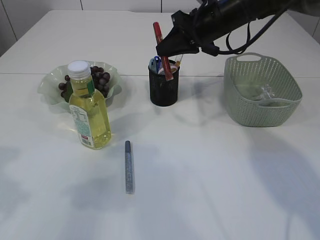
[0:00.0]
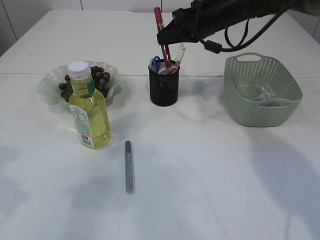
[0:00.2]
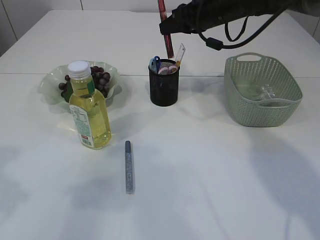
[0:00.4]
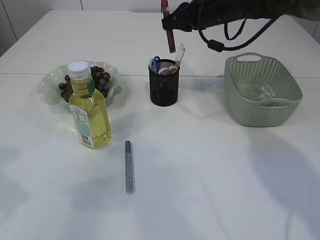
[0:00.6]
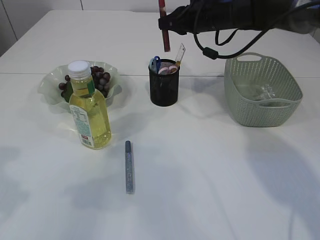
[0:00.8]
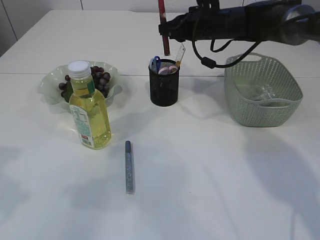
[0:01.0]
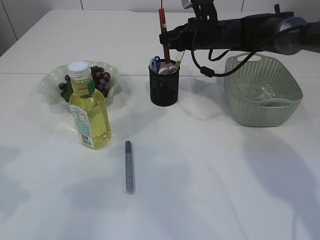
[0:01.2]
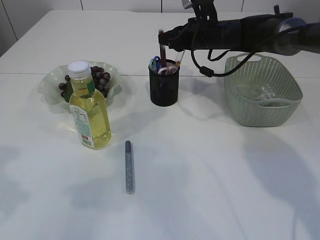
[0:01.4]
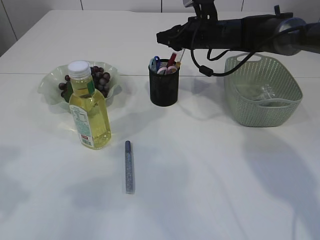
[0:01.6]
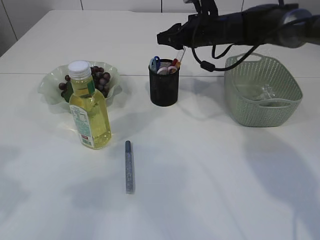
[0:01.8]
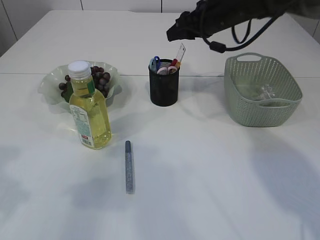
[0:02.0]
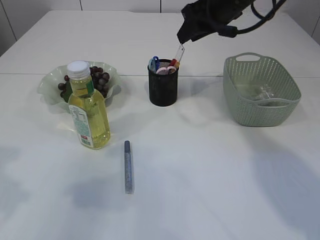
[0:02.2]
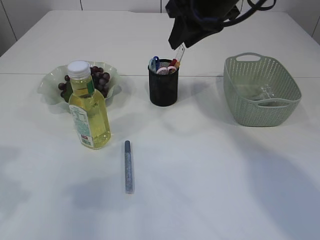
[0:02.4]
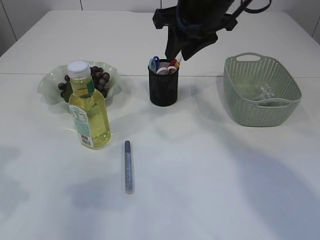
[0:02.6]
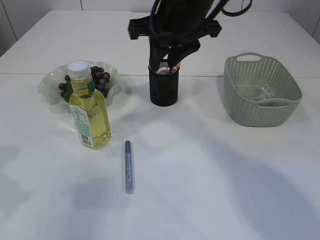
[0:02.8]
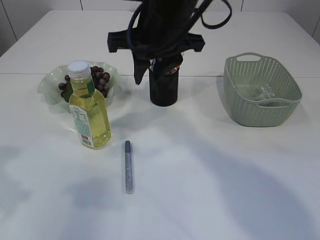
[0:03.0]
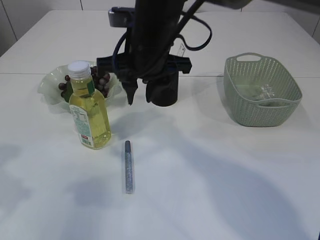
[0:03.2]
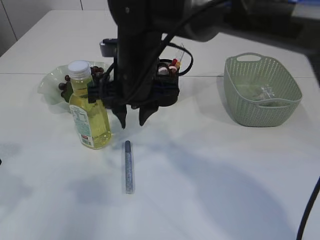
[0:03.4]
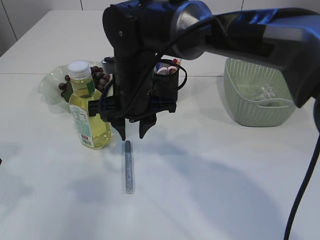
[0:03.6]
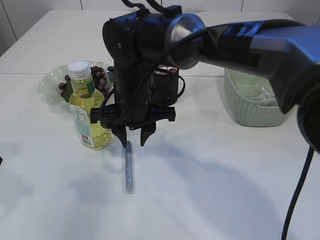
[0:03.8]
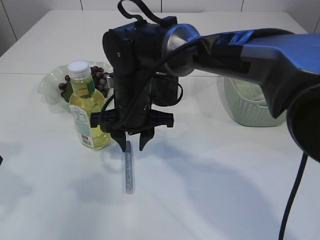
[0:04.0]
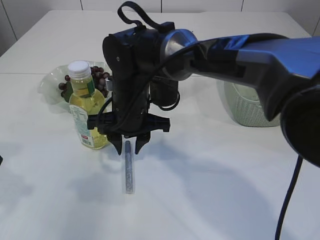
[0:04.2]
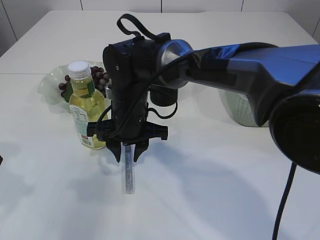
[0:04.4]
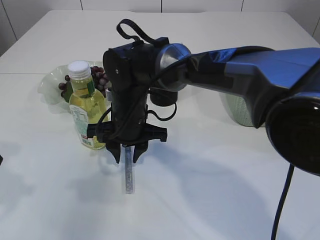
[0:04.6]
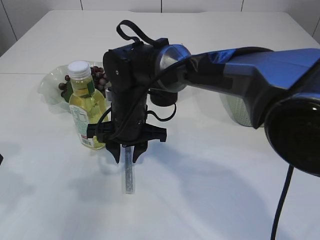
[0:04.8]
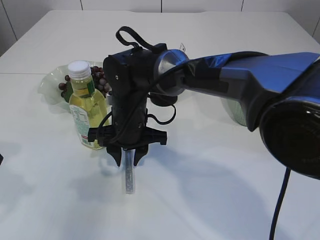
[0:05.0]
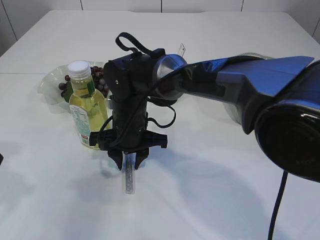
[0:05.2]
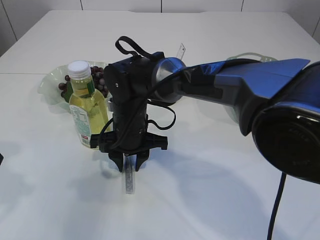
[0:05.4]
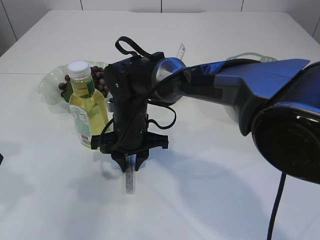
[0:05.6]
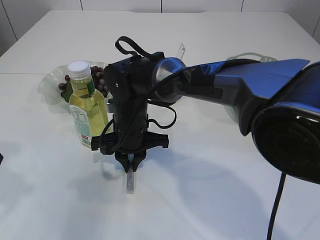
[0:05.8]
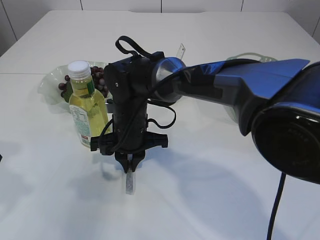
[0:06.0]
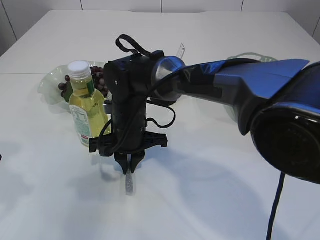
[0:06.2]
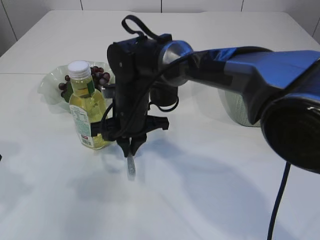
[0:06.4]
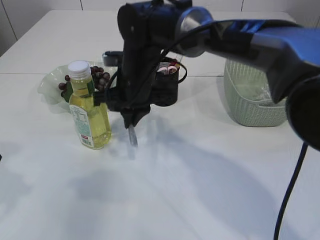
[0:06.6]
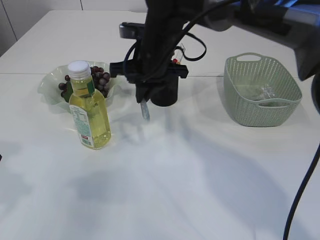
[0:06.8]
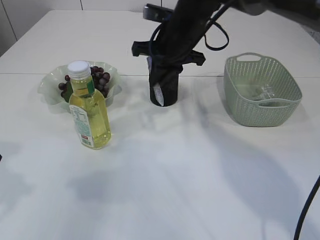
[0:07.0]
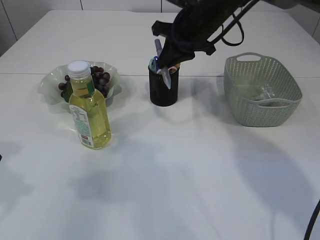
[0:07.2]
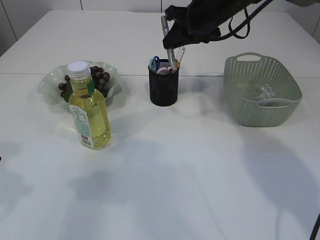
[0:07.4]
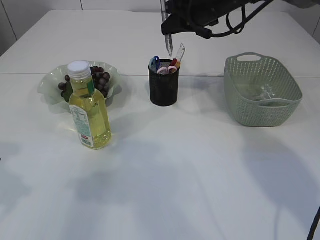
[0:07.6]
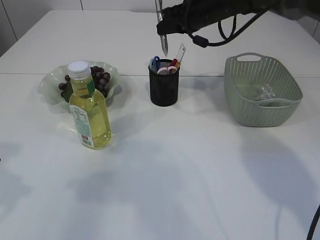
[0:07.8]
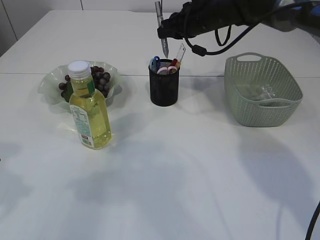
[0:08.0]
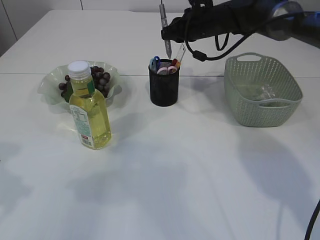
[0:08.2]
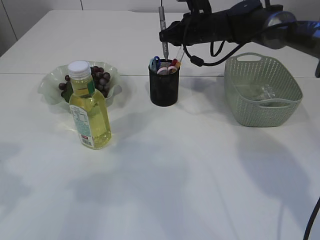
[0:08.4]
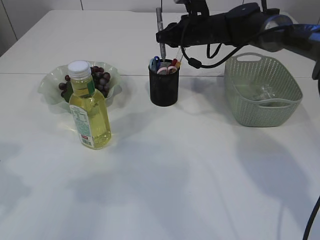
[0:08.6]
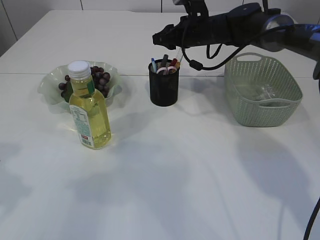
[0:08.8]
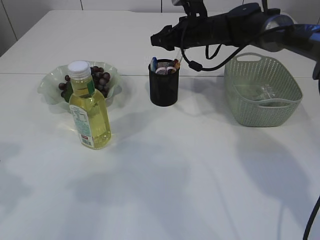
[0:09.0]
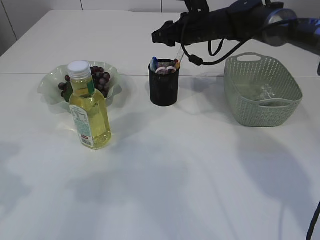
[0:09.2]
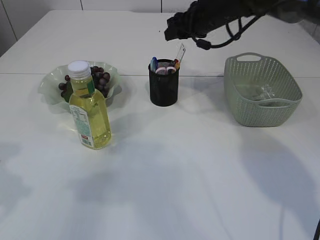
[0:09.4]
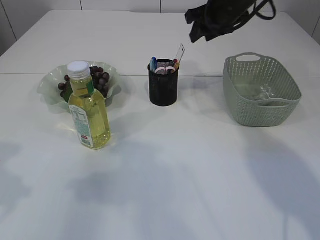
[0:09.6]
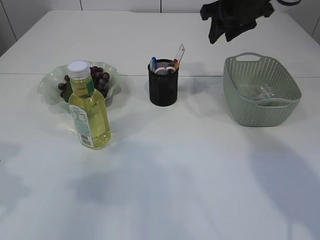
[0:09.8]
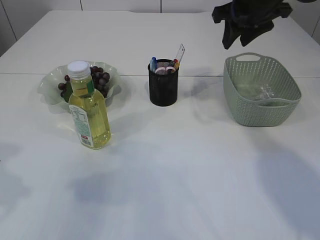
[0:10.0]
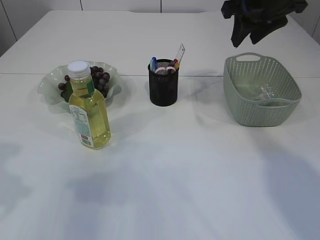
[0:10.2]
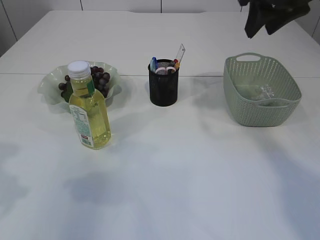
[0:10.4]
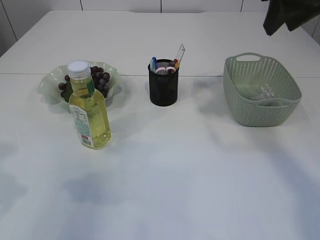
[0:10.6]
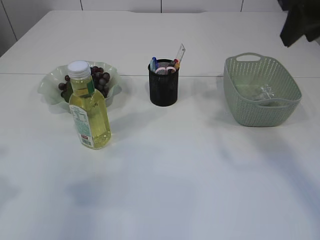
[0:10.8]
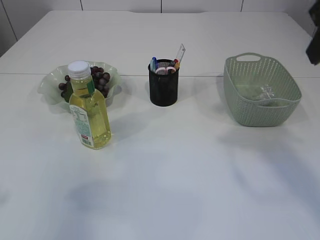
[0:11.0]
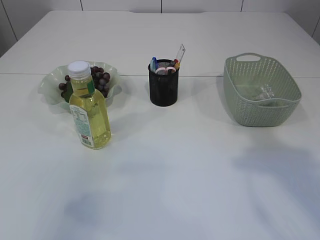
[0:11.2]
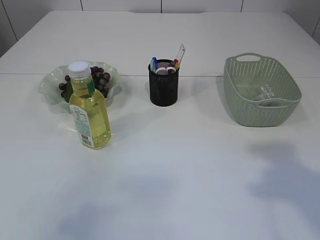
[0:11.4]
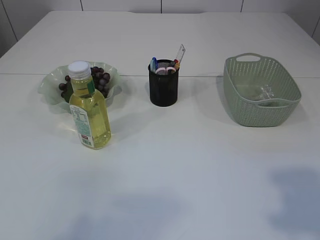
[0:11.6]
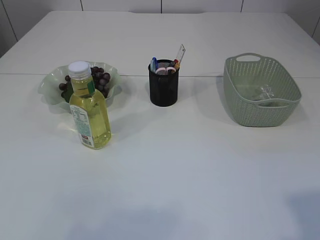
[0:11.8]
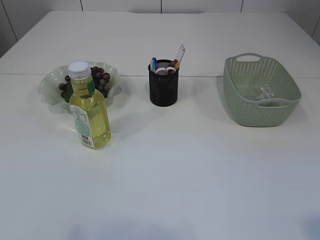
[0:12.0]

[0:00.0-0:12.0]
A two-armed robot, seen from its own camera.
Step, 0.0 to 1.6 s: place the red glue into the pen holder.
Step, 1.8 to 6.6 s: pick up the silver glue.
Step, 6.8 to 9.0 s: place the silver glue into the pen holder.
0.0 to 1.6 s: The right gripper goes about 10 cm forward and downward, and opens.
1.6 to 3.0 s: The right gripper is displaced backward, to the left and upward by about 25 cm.
3.0 to 4.4 s: The right gripper is displaced downward and to the left by roughly 15 cm.
4.4 to 6.0 s: The right gripper closes.
6.0 to 7.6 s: The right gripper travels to the right, upward and forward by approximately 25 cm.
7.6 to 9.0 s: The right gripper travels downward by some 10 cm, and opens its fingers.
9.0 to 10.4 s: The right gripper travels backward, upward and to the right by approximately 25 cm.
10.4 to 12.0 s: The right gripper goes about 35 cm backward. Meanwhile the left gripper is displaced backward and upward by roughly 20 cm.

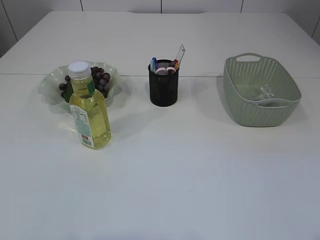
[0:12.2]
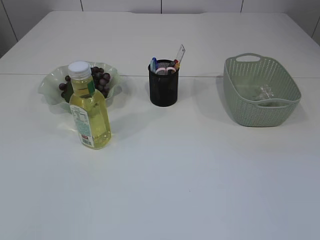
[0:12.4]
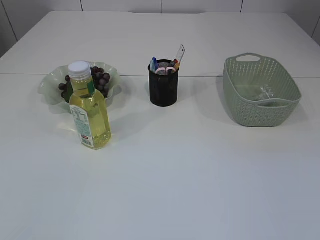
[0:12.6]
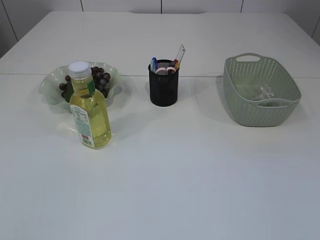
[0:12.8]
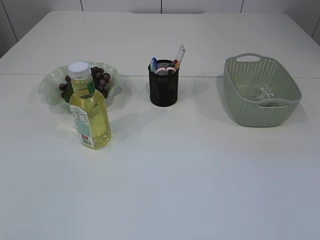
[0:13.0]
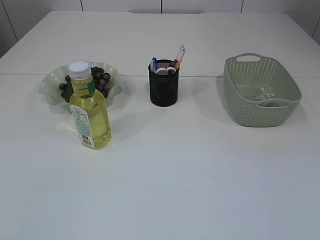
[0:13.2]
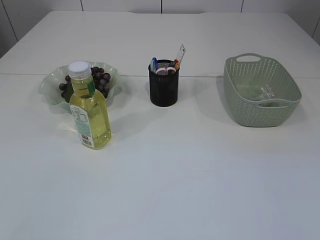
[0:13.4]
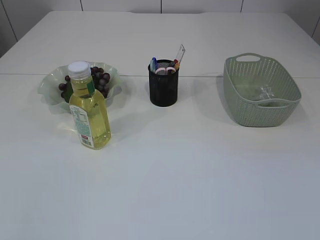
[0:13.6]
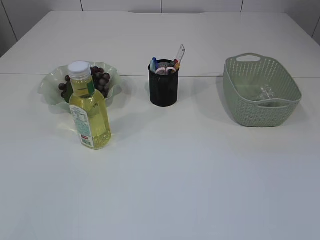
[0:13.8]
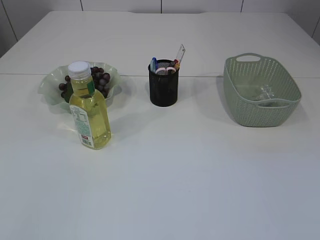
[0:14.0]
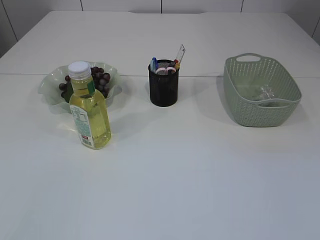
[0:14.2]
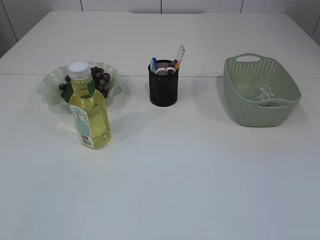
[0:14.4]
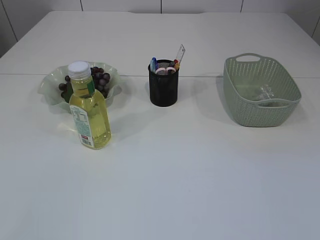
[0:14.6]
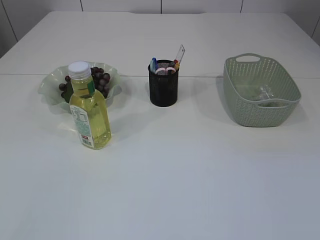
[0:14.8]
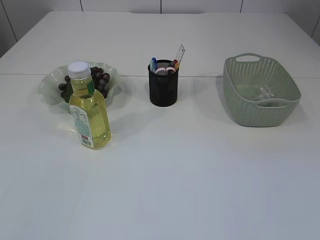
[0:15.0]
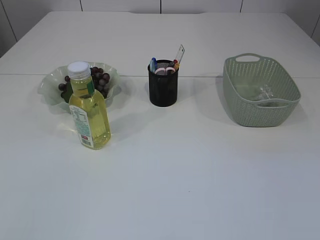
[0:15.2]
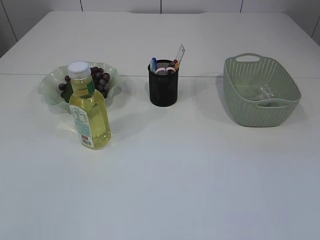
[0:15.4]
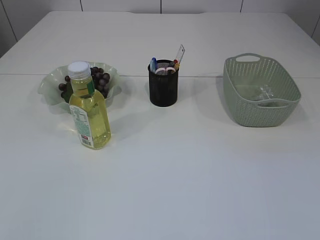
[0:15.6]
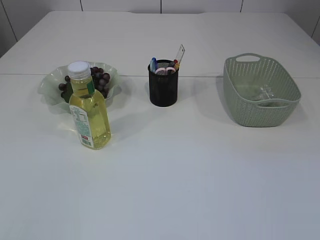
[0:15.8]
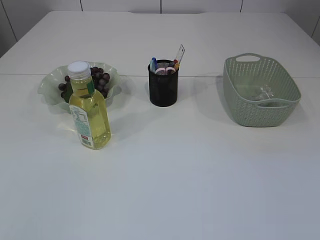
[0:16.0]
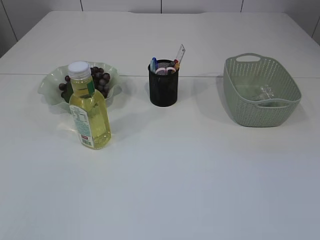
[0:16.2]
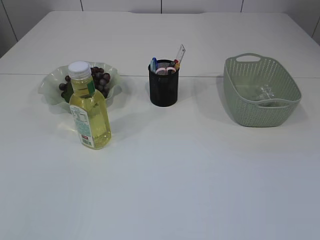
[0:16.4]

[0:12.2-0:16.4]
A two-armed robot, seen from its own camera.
15.0 to 16.4 s: Neither gripper changes place.

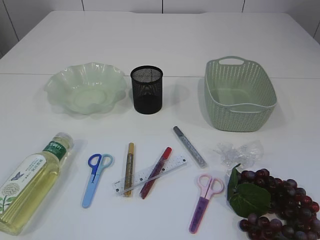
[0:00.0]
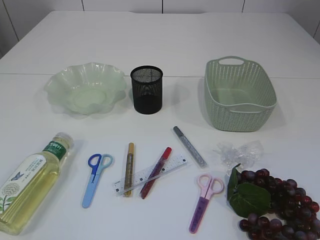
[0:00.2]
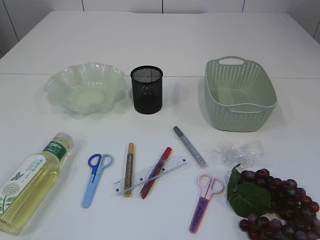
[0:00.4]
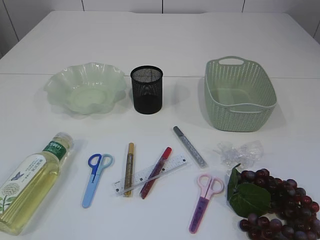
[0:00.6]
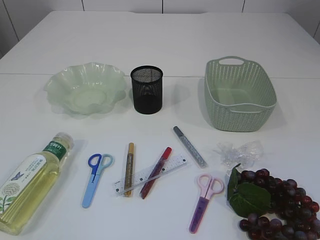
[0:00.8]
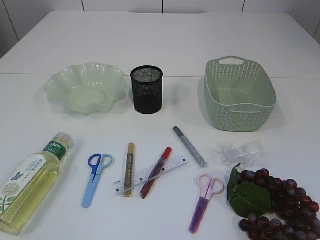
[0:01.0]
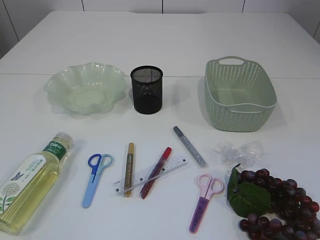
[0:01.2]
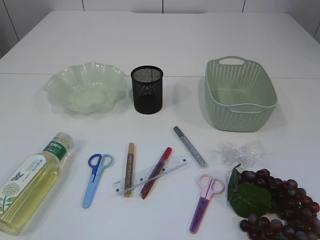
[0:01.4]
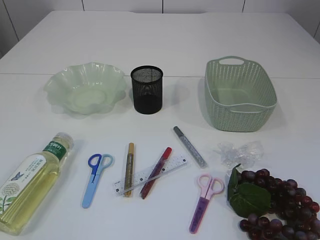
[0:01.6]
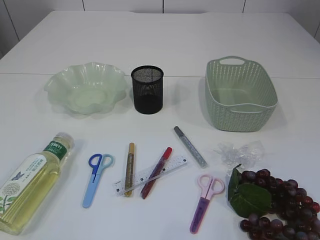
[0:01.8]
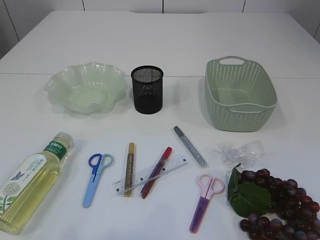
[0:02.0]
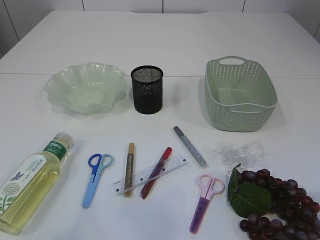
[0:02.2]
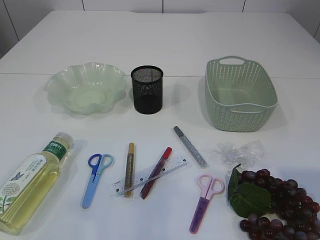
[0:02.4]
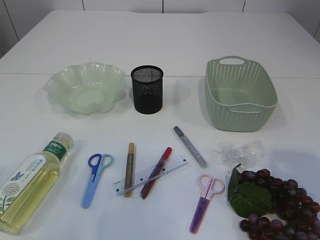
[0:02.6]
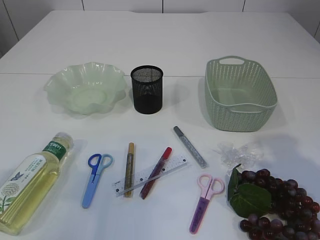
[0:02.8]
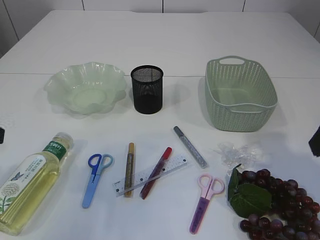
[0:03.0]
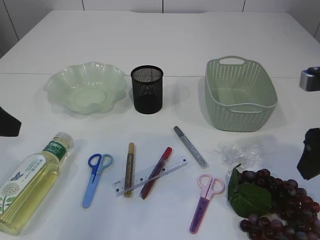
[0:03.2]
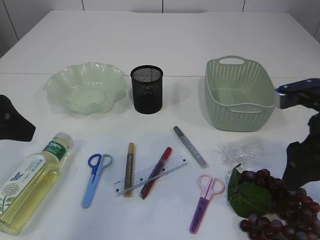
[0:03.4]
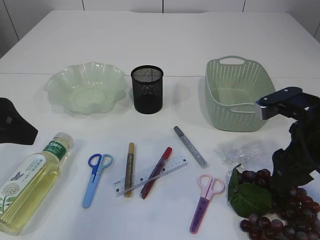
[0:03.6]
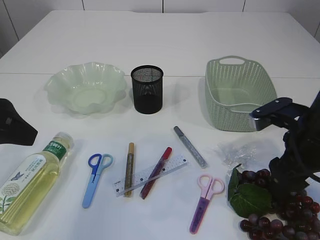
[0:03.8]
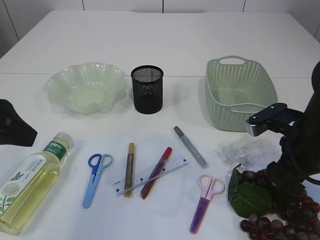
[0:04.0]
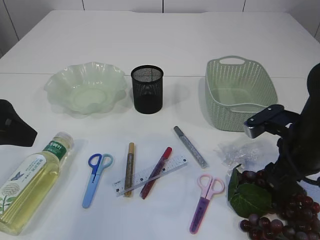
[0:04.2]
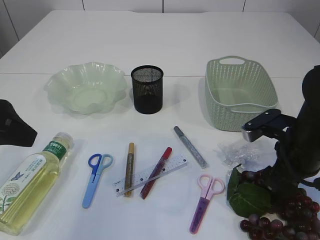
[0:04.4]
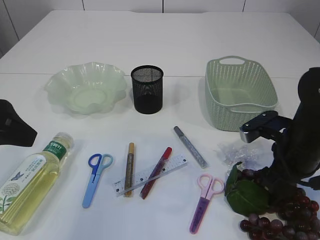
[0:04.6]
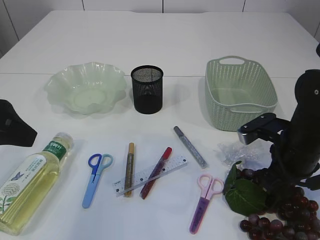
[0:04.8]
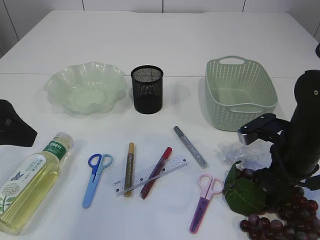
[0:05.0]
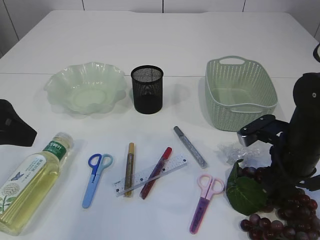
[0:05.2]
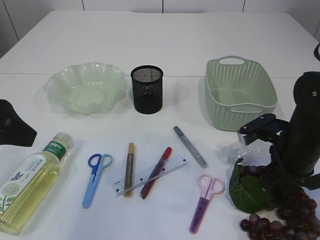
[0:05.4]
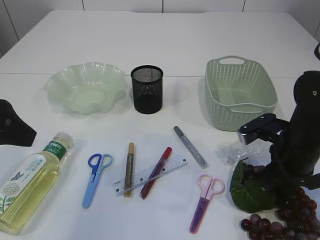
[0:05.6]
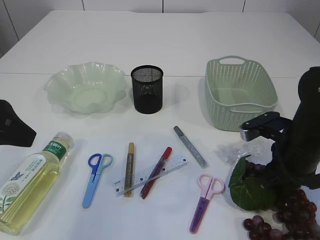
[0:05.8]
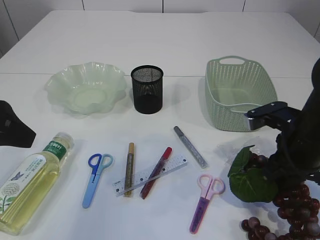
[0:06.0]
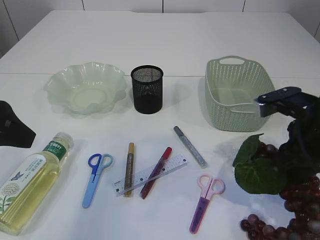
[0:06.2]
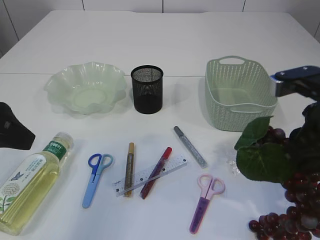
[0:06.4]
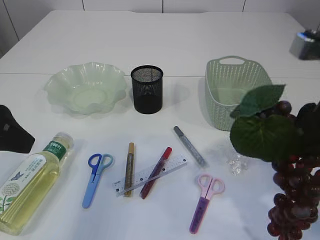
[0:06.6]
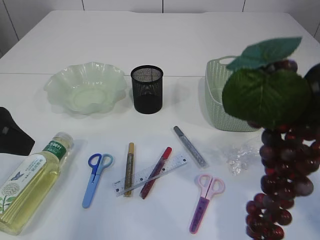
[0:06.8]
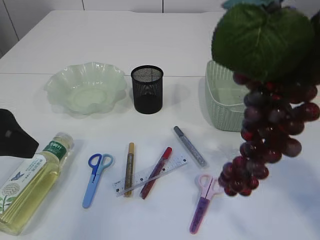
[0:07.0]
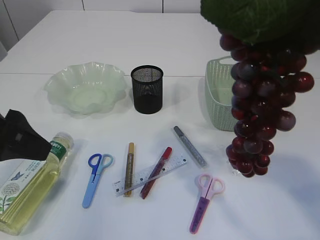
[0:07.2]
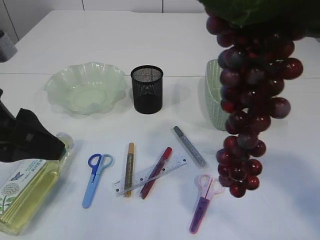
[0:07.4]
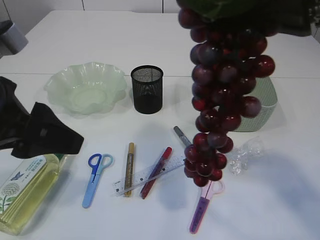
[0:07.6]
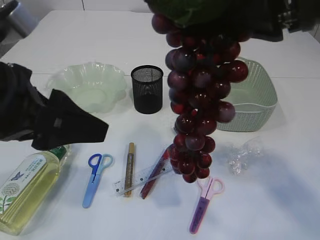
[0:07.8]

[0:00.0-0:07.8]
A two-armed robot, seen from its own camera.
Step, 0.0 to 6.8 s: Pick up the grapes.
1.6 to 3.2 s: The grippers both shift forward by roughly 25 cm.
3.2 to 4.6 s: The right gripper goes approximately 15 cm downward and forward.
4.6 to 6.2 s: The right gripper shifts approximately 5 cm upward, and closes its fingers.
6.2 to 7.8 s: The right gripper shifts some 20 cm upward and to the left, while the left gripper shifts approximately 5 cm to the right.
